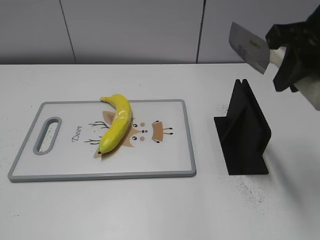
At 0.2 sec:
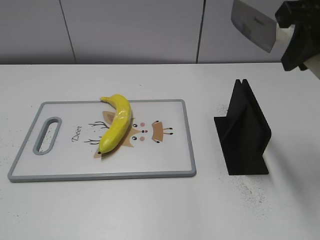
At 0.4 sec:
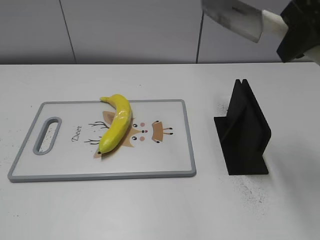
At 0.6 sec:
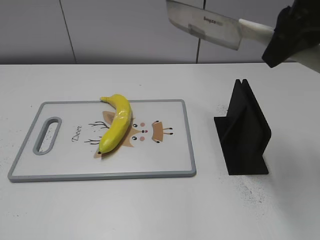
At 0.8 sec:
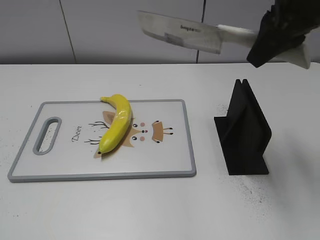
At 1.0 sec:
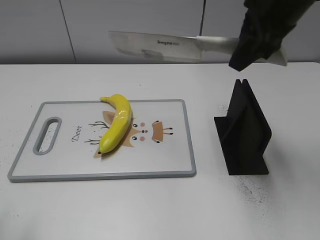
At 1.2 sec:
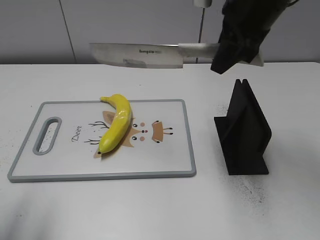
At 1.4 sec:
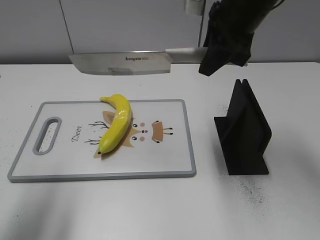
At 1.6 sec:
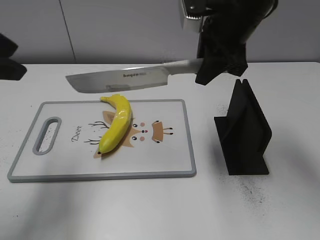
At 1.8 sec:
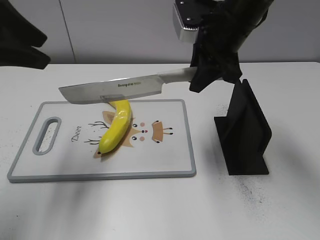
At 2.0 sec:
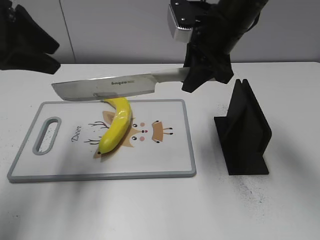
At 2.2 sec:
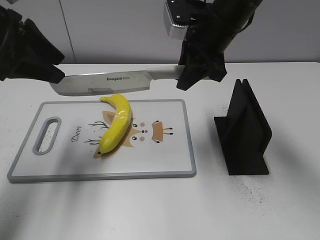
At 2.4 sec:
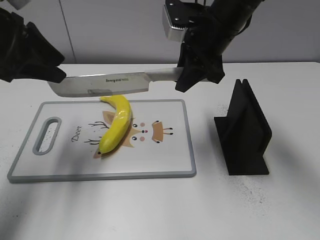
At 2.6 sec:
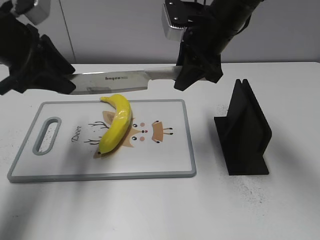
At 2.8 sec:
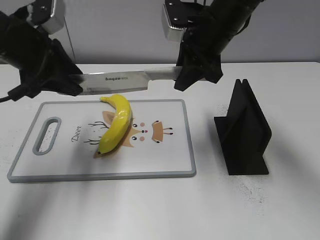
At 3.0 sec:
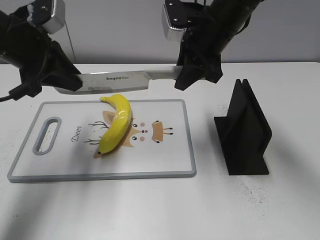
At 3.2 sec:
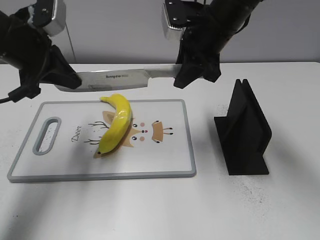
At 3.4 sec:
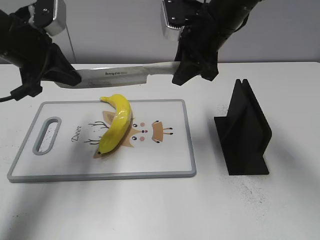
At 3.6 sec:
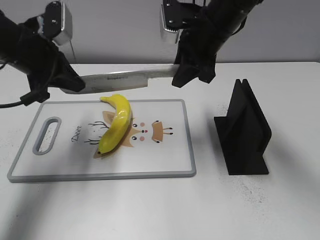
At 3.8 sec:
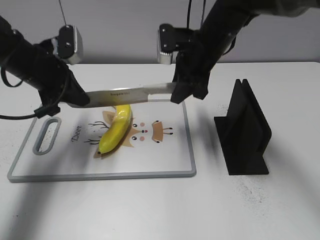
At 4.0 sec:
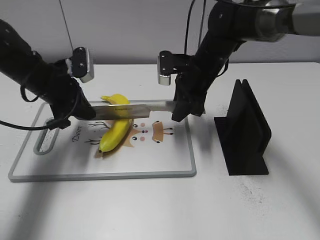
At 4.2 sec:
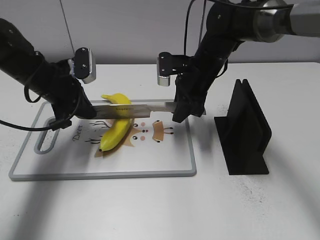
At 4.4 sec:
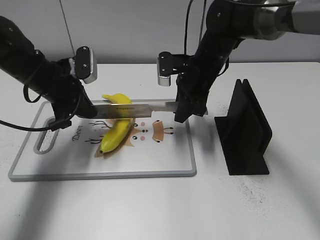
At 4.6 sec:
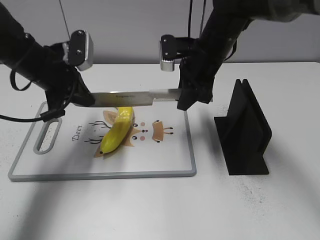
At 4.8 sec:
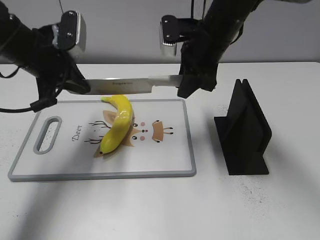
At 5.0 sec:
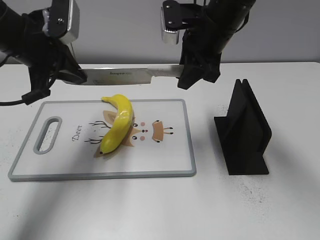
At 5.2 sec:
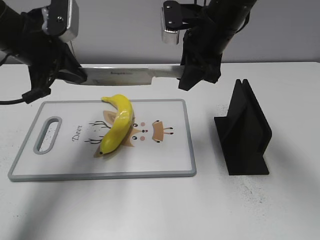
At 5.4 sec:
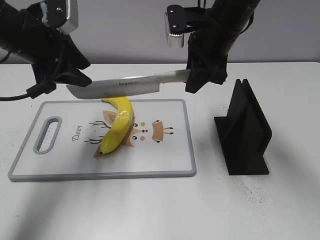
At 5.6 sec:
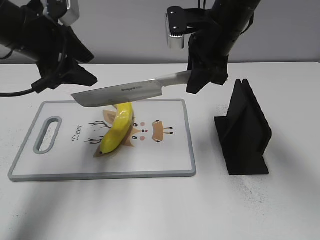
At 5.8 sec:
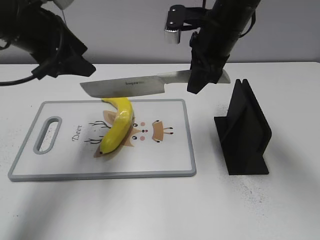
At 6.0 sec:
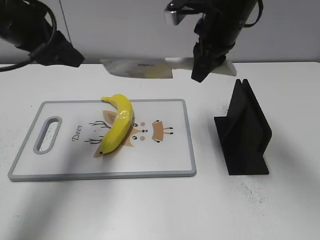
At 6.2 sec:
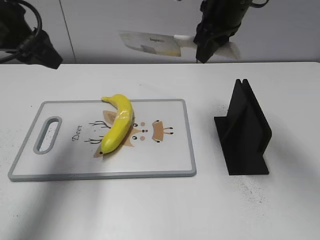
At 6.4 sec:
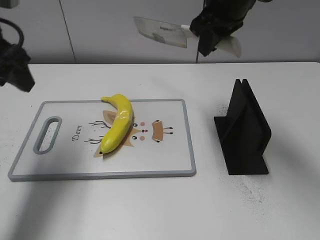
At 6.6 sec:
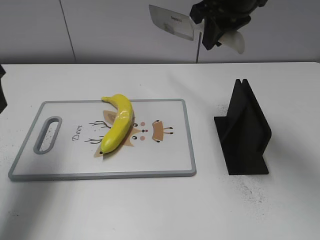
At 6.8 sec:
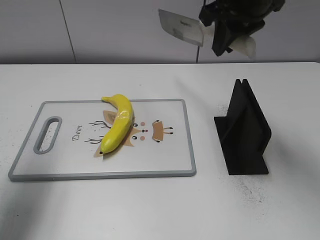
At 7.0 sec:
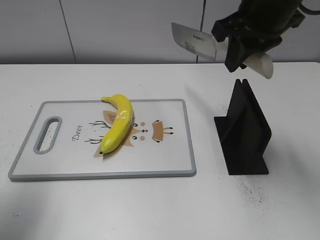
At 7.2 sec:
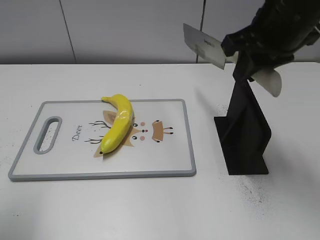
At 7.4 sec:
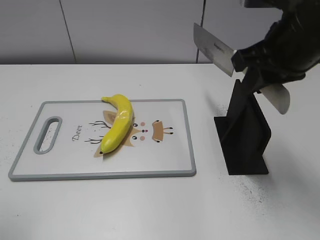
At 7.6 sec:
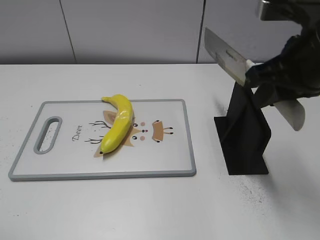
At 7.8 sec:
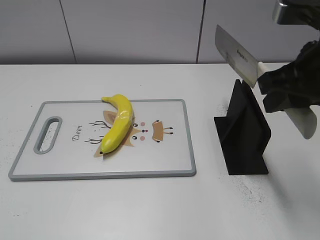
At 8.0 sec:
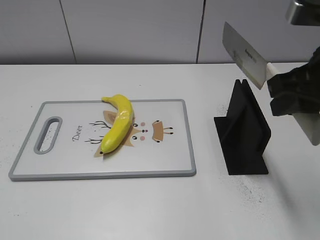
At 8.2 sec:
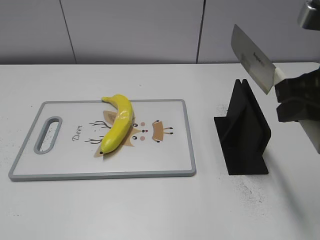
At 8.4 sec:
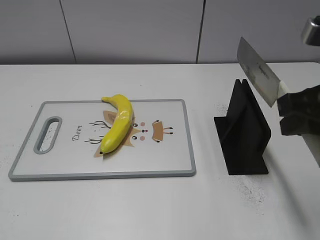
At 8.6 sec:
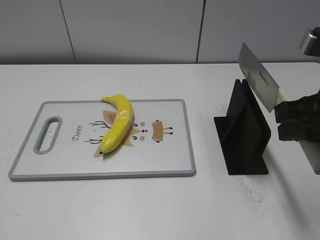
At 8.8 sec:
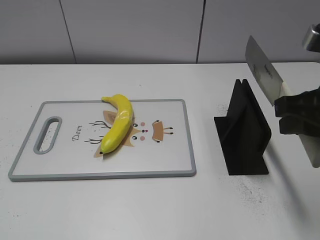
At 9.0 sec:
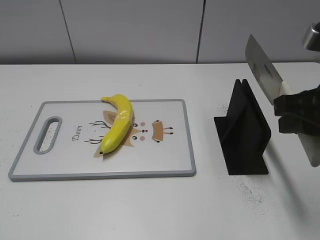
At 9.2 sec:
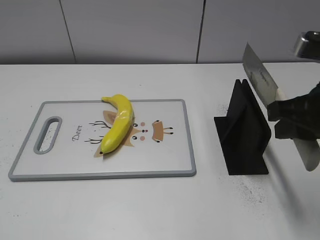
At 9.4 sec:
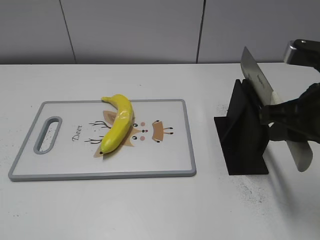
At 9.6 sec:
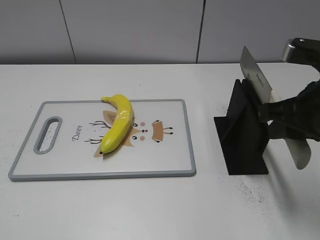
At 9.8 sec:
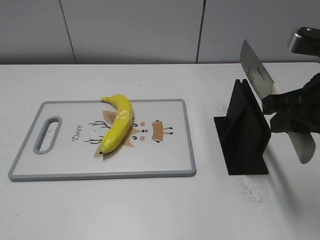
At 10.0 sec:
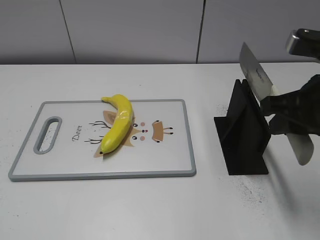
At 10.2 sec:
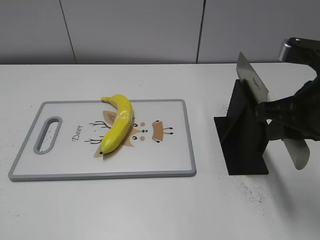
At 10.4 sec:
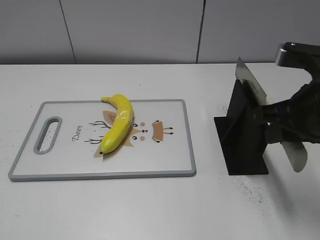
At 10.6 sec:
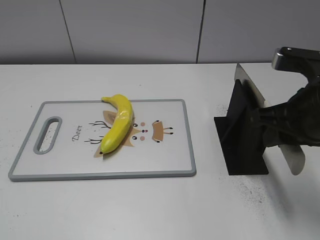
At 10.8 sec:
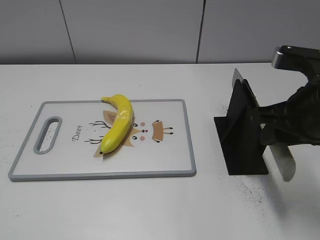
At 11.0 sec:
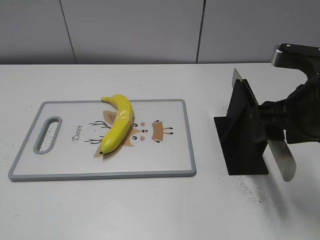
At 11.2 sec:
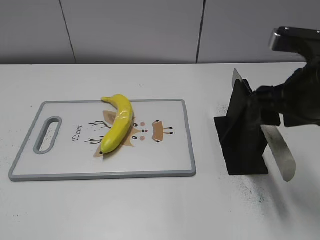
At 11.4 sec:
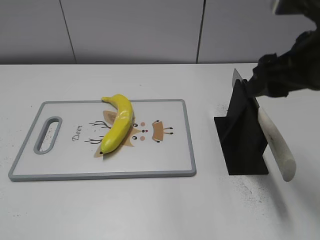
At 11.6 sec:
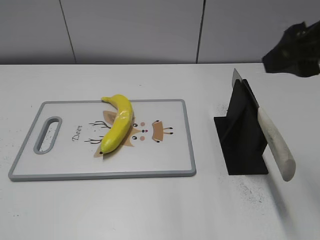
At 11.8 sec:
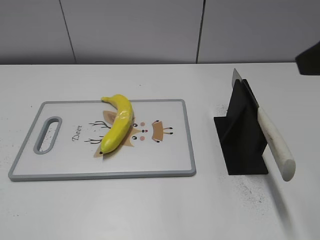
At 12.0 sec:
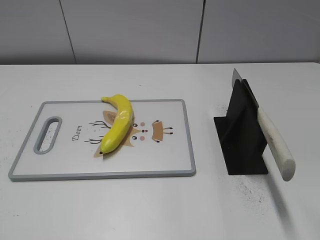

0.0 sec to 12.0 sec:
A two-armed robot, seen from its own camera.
Task of the whole recording: cut plastic banana.
Step, 0.2 sec to 5.4 sec: Lift the knife with your right hand.
Step, 5.6 sec to 6.8 sec: Cut the banana with your left hand.
Step, 7.0 sec to 7.6 sec: Lift the knife with your right hand.
0.0 sec to 1.6 sec: The right gripper heads forward and to the left, covering approximately 15 cm; the left gripper goes roughly 25 cm forward.
1.6 sec to 3.0 sec: The left gripper heads forward and downward, covering approximately 15 cm, and closes up.
3.0 sec to 4.4 sec: The grippers both shift downward by about 10 cm. The left gripper closes.
4.4 sec to 6.0 sec: Both grippers move upward, approximately 10 cm. The left gripper opens up.
6.0 sec to 7.6 sec: The right gripper goes some 15 cm backward and to the right. Meanwhile the left gripper moves backward, approximately 25 cm.
7.6 sec to 9.0 sec: The right gripper is displaced backward by some 5 cm.
9.0 sec to 10.4 sec: The grippers make only small movements.
10.4 sec to 12.0 sec: The right gripper heads upward and backward, covering roughly 15 cm, and opens up.
